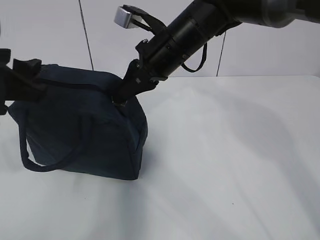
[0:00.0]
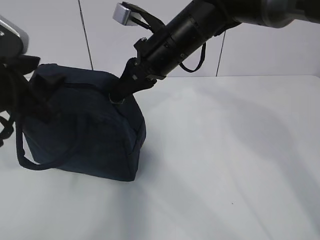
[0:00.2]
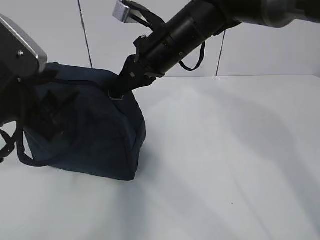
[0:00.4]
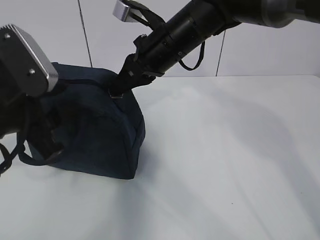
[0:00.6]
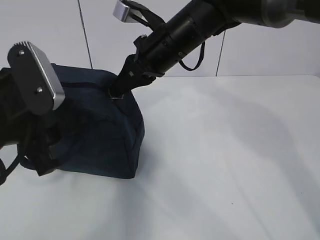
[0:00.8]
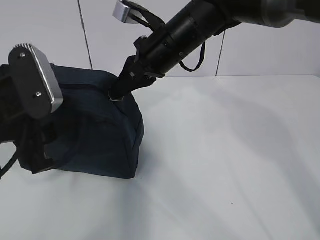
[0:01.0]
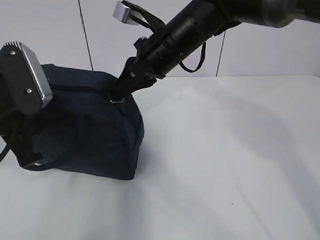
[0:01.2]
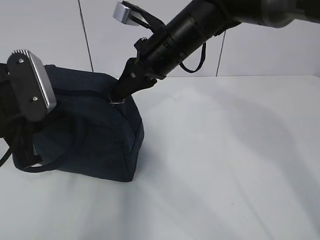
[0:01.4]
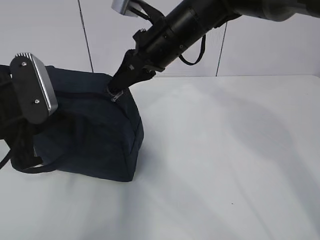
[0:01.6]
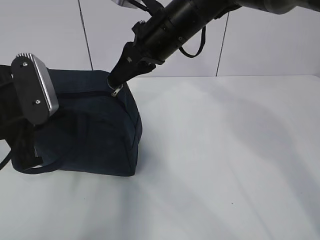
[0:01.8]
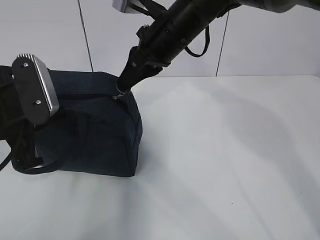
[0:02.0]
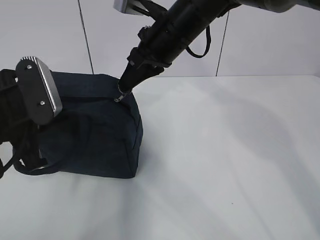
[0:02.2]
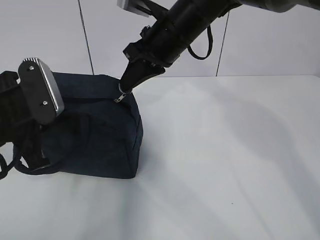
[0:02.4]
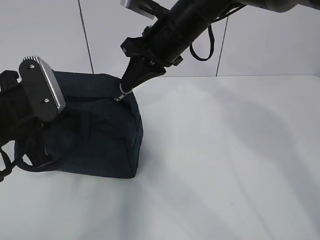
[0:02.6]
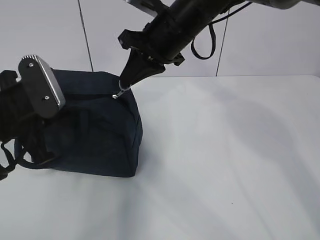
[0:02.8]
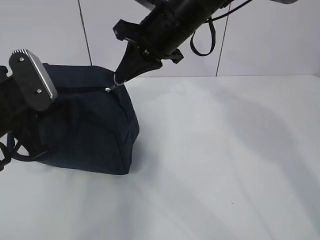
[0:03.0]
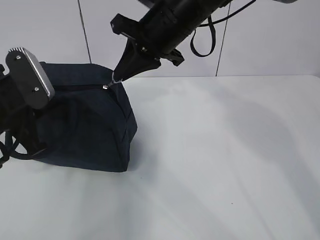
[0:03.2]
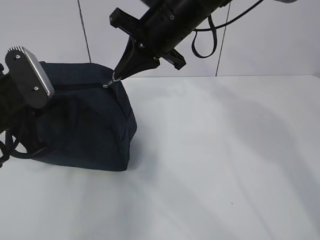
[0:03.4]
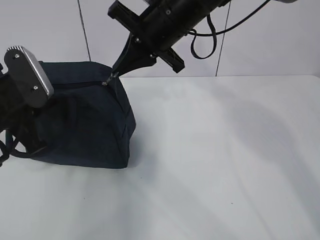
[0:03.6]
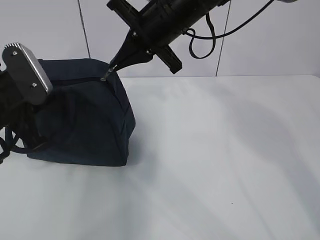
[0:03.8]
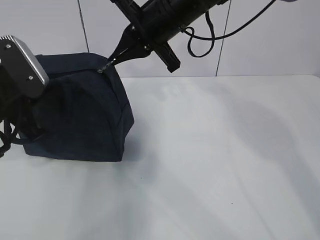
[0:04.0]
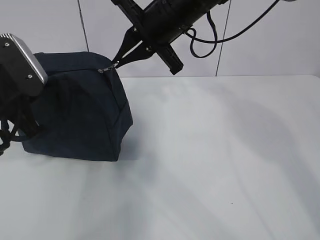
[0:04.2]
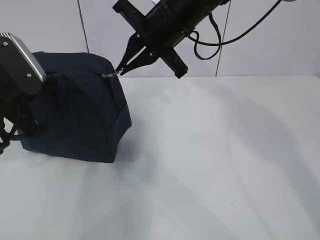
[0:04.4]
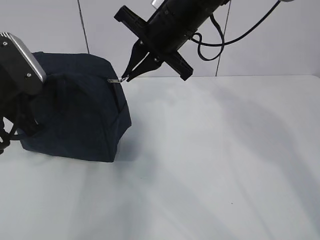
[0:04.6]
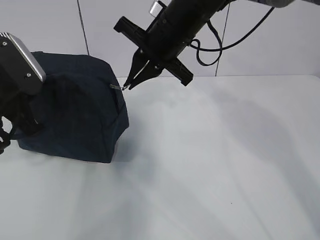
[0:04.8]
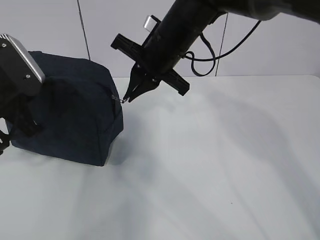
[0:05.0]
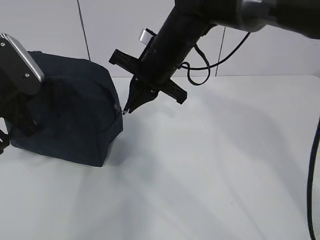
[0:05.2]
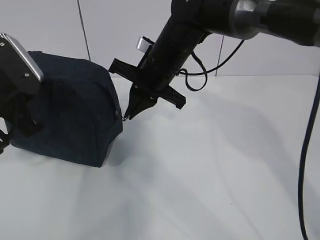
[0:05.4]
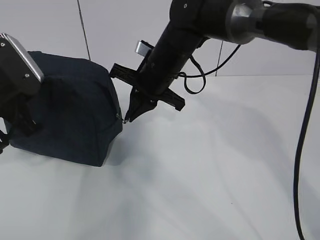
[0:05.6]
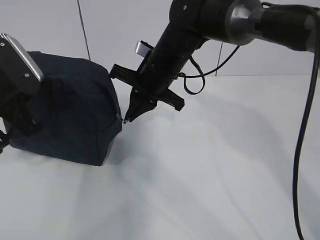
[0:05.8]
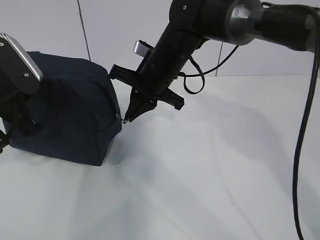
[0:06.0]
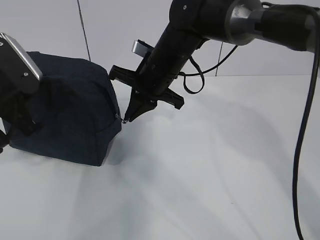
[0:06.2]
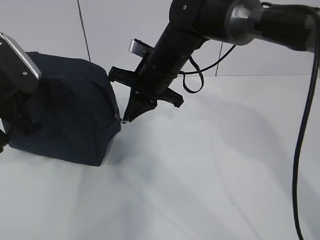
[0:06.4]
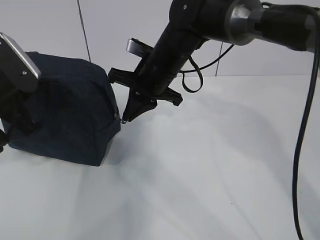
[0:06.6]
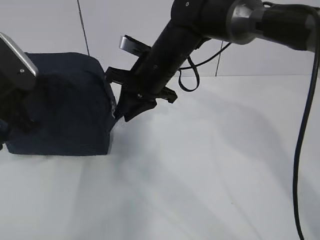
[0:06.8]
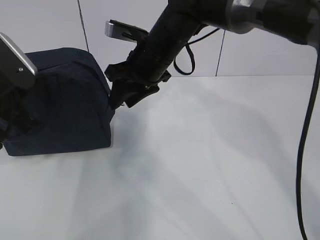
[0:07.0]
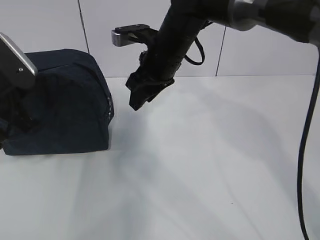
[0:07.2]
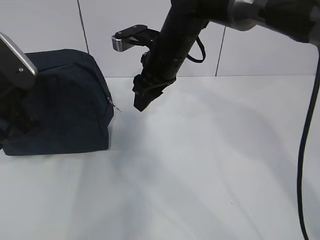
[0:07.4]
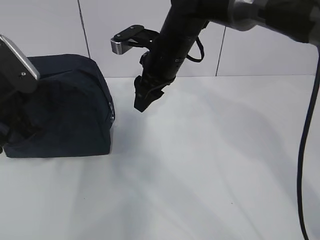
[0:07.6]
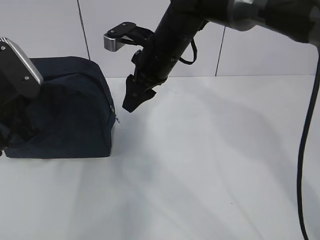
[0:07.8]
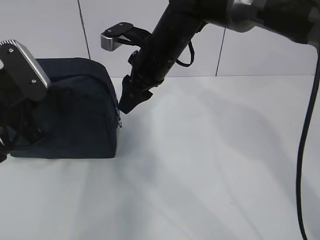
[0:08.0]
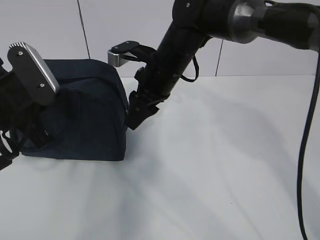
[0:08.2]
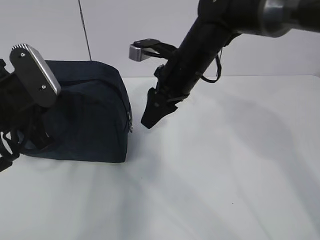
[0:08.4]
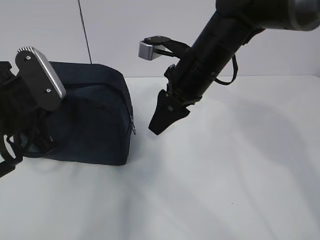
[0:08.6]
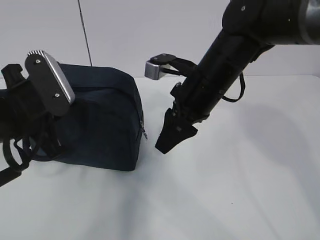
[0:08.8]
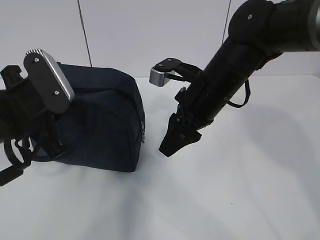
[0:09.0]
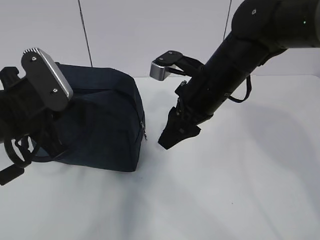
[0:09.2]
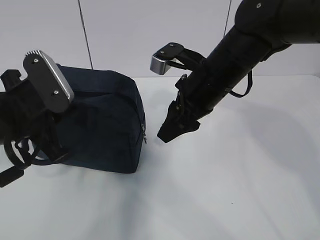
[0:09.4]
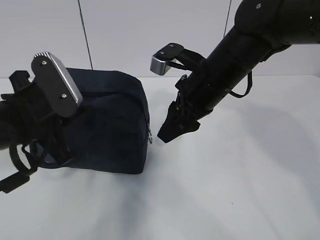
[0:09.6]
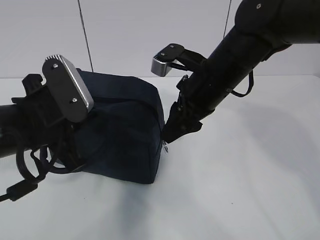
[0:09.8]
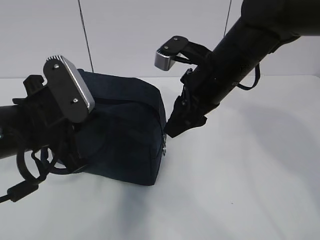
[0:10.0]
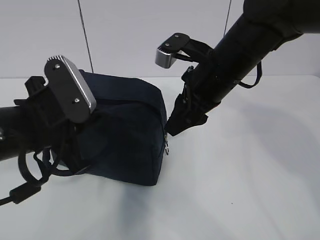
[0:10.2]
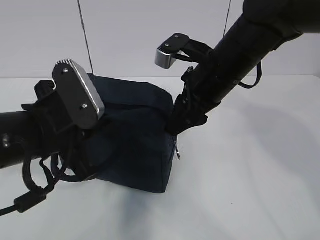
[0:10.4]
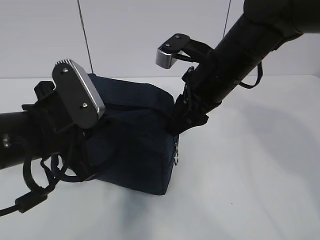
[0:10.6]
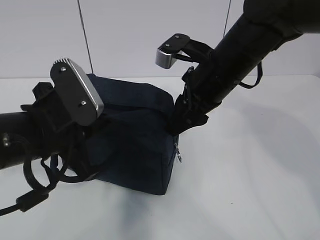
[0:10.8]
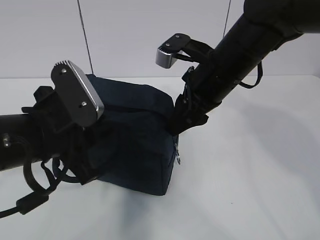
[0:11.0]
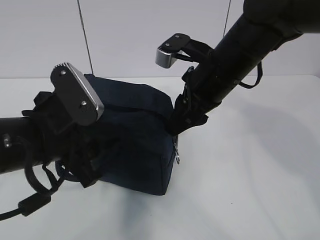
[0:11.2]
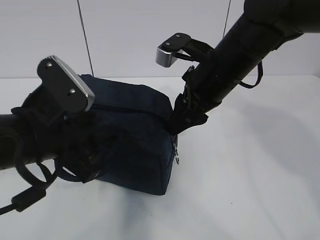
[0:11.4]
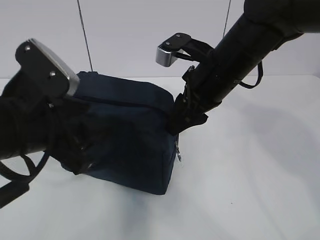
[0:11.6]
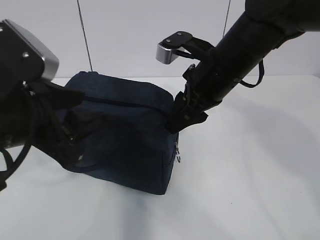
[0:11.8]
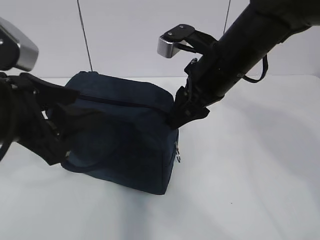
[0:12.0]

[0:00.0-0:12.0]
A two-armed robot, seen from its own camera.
0:00.0 to 0:01.6: The left gripper closes.
0:04.4 to 0:06.0: The right gripper travels downward by approximately 10 cm.
0:06.0 to 0:07.6: The right gripper opens its fingers.
0:07.6 to 0:09.0: The right gripper travels backward and to the right by some 10 cm; the left gripper moves approximately 5 cm.
0:09.0 to 0:10.4: The left gripper changes place by about 5 cm.
0:10.4 to 0:12.0: The left gripper heads upward, covering roughly 5 cm, and opens.

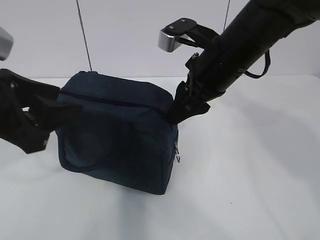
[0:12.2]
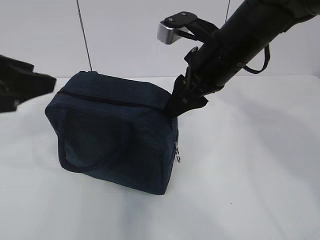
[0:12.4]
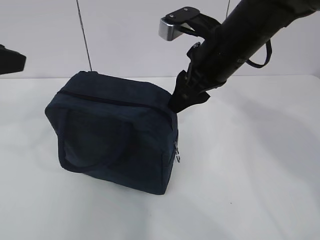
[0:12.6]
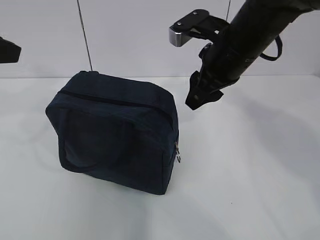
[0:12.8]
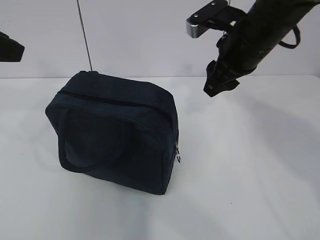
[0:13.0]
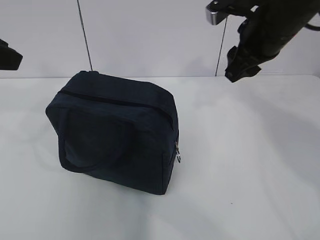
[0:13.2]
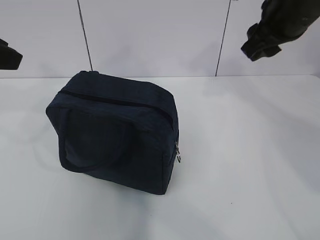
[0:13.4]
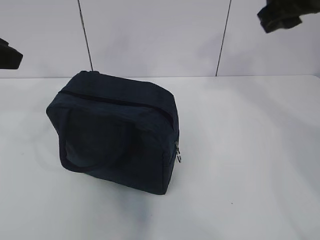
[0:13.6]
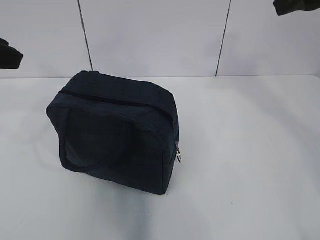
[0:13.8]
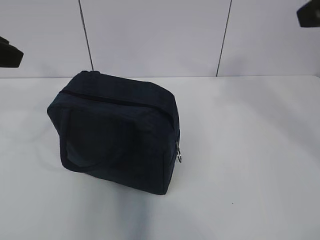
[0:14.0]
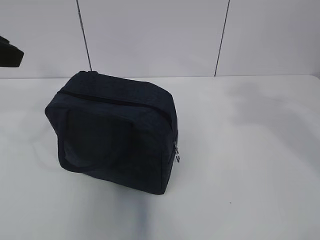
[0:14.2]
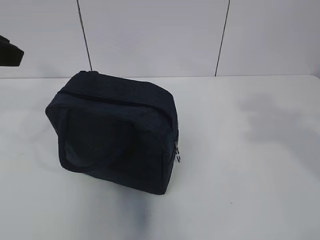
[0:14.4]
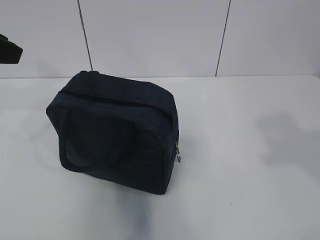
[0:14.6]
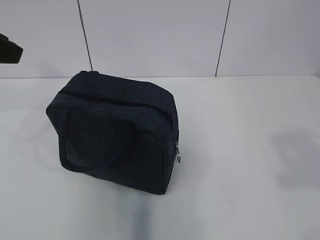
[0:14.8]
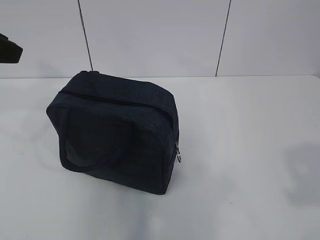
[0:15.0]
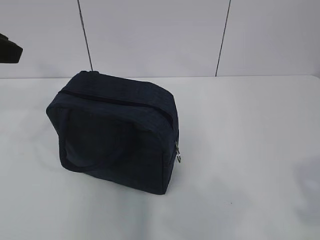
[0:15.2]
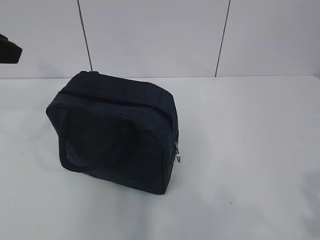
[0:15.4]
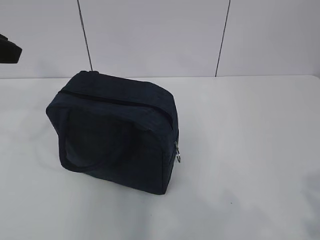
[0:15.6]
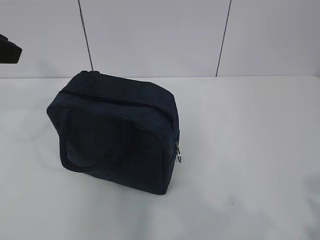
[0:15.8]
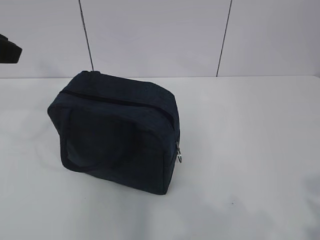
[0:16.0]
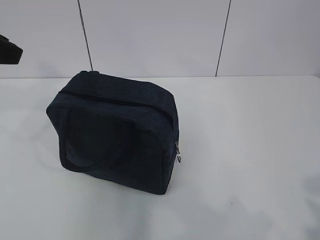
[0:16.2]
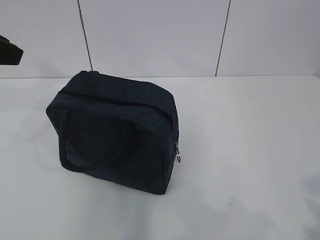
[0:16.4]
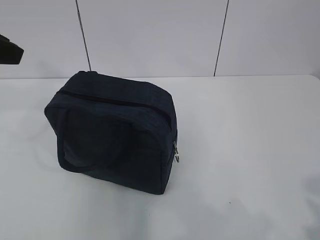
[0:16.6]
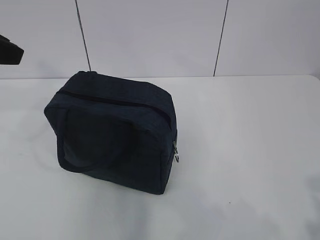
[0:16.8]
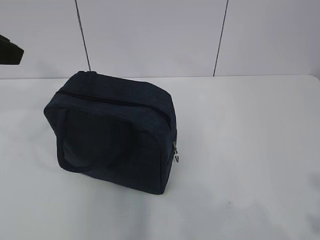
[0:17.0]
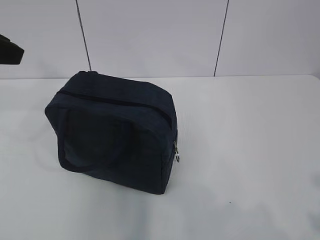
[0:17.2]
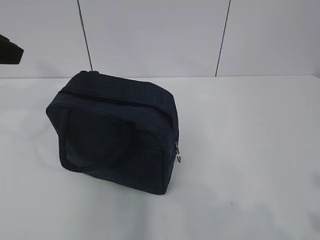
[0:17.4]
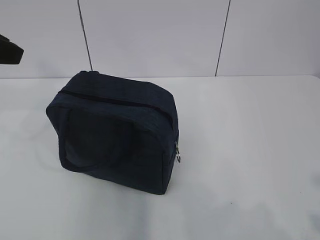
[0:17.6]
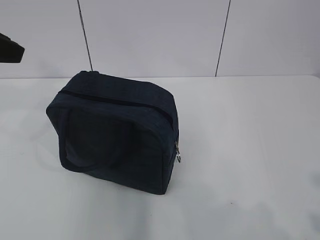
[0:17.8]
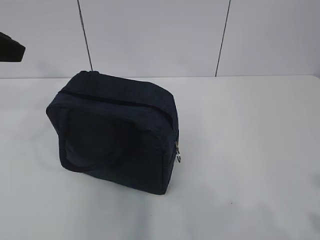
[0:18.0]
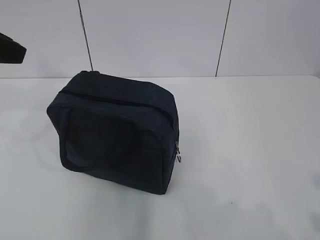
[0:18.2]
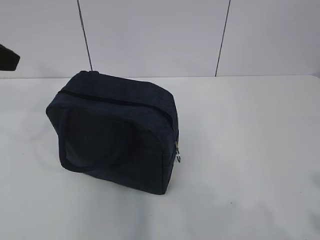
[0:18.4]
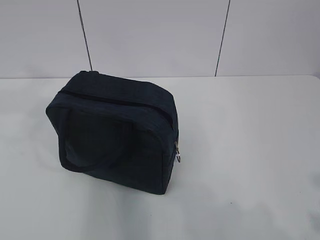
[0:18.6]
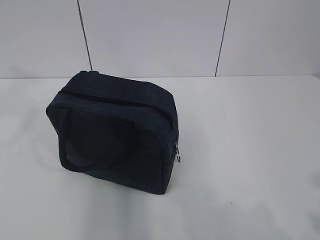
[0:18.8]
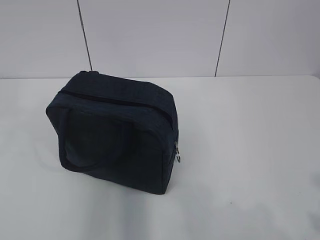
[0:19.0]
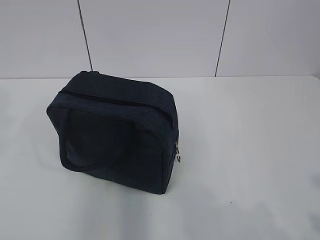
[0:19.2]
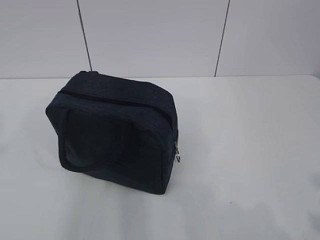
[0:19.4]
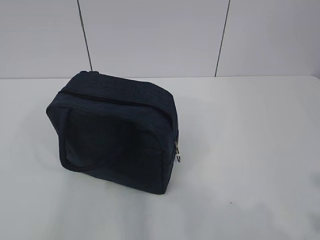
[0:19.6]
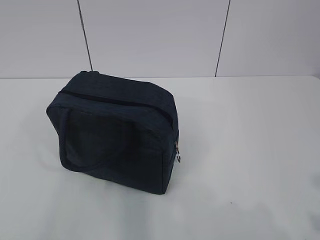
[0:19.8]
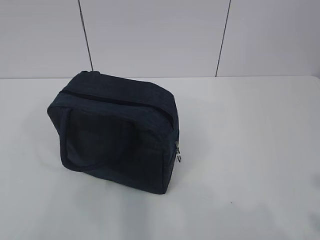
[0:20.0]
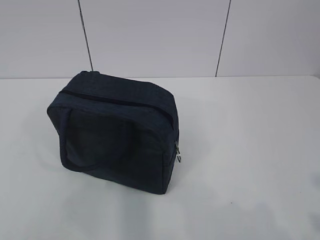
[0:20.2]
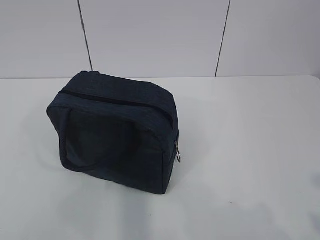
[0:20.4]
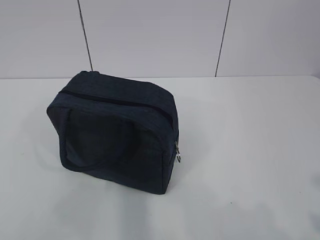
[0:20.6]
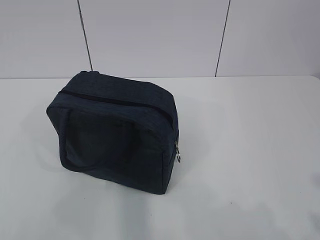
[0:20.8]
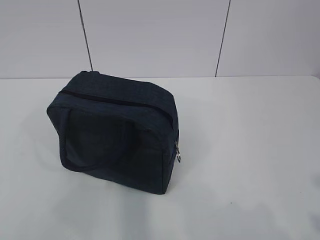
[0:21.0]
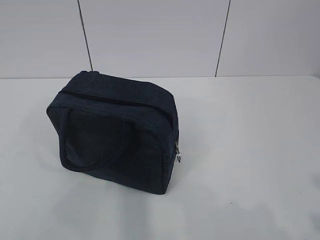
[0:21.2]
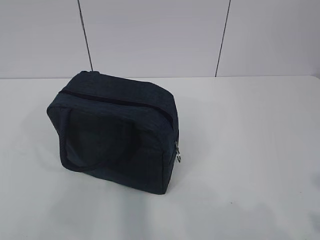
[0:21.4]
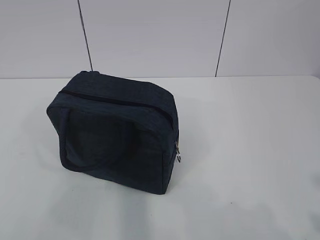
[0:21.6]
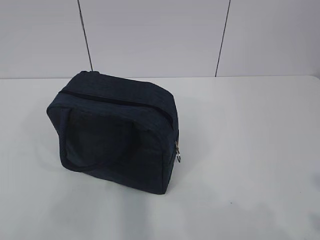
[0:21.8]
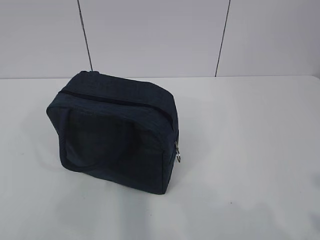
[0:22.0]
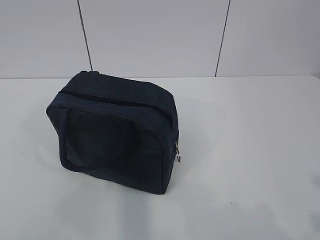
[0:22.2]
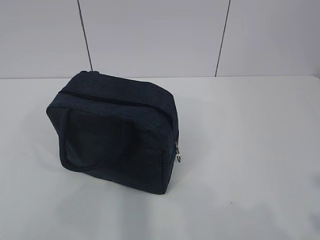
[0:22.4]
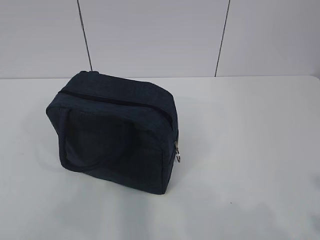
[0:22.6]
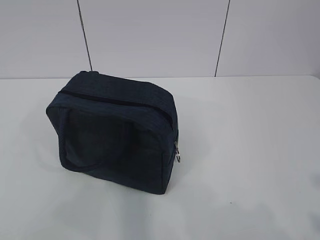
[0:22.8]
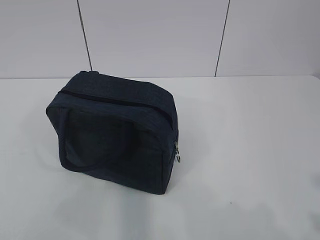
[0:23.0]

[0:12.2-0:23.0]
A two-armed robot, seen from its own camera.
0:12.2 to 0:13.8: The right gripper goes roughly 15 cm upward and to the right, while the left gripper goes approximately 10 cm to the left, upward and forward.
0:13.8 to 0:15.2: The right gripper travels backward and downward by roughly 30 cm.
0:15.2 to 0:16.8: There are only small adjustments of the grippers.
0:16.8 to 0:18.4: There are only small adjustments of the grippers.
0:18.4 to 0:20.0: The left gripper moves backward, about 25 cm.
